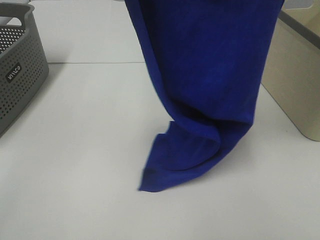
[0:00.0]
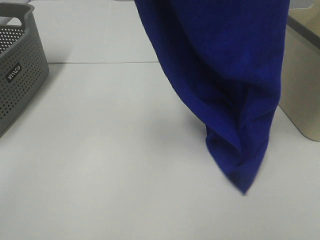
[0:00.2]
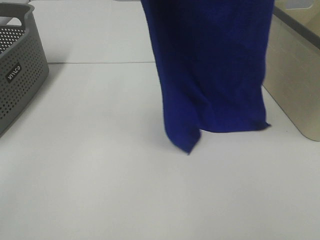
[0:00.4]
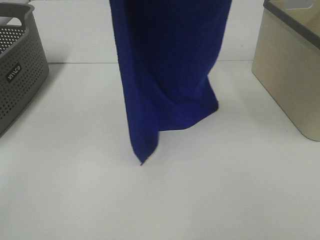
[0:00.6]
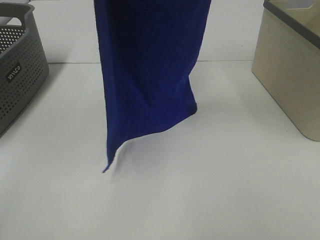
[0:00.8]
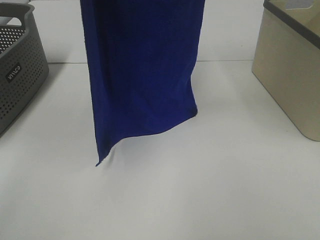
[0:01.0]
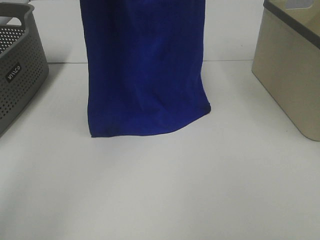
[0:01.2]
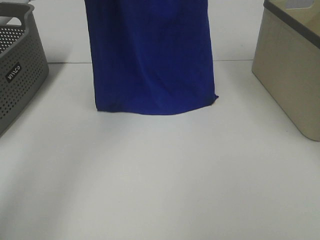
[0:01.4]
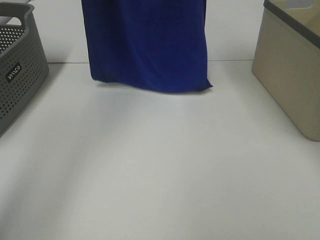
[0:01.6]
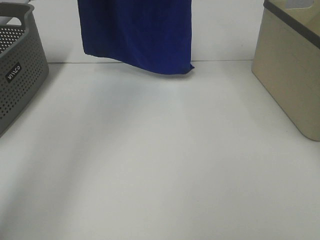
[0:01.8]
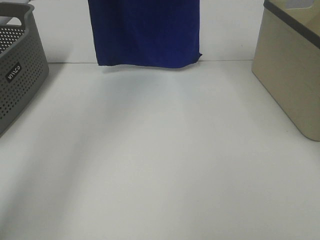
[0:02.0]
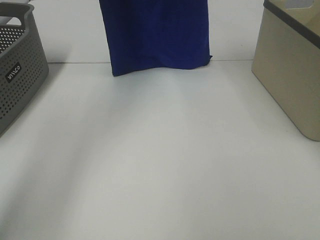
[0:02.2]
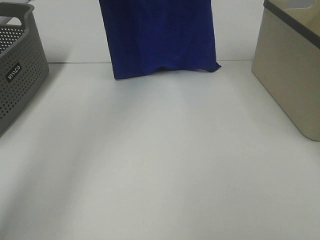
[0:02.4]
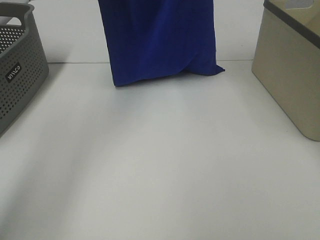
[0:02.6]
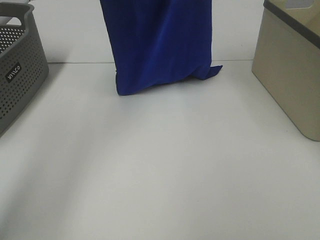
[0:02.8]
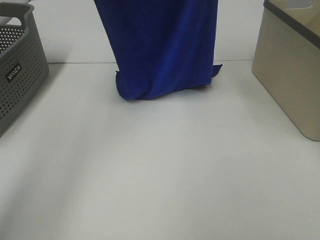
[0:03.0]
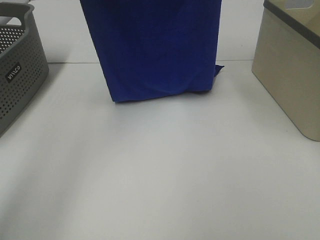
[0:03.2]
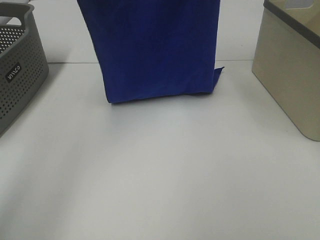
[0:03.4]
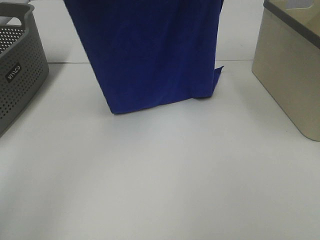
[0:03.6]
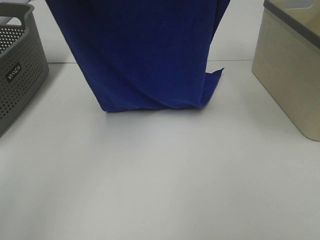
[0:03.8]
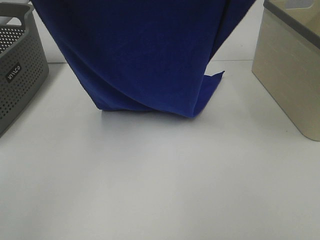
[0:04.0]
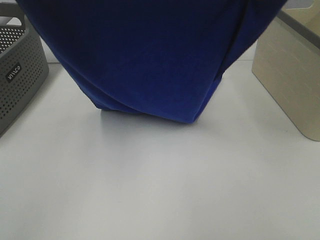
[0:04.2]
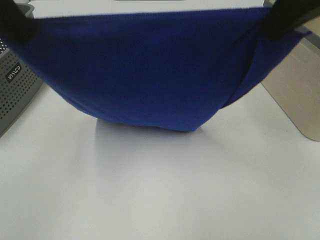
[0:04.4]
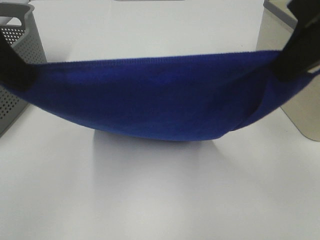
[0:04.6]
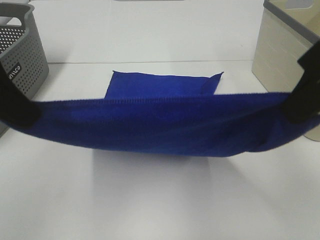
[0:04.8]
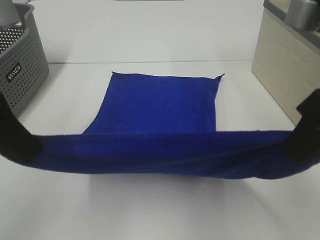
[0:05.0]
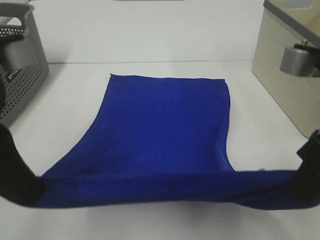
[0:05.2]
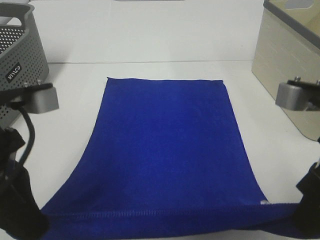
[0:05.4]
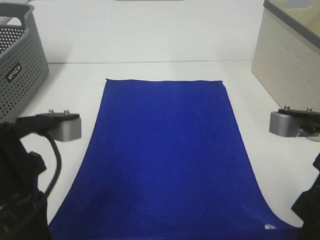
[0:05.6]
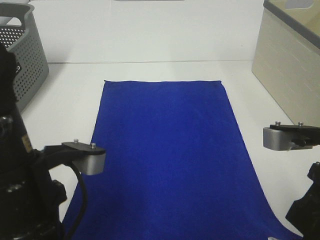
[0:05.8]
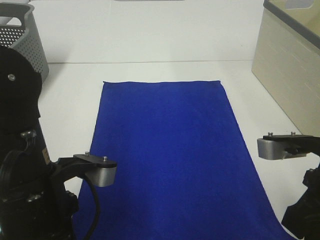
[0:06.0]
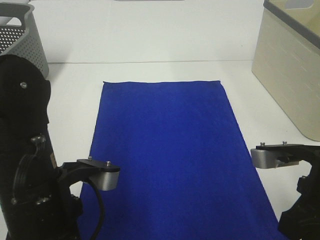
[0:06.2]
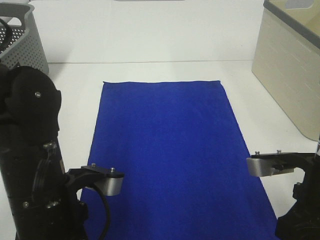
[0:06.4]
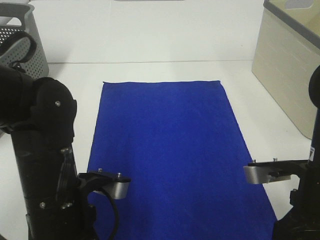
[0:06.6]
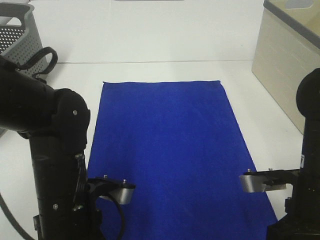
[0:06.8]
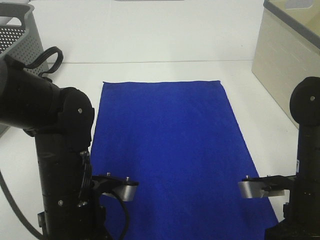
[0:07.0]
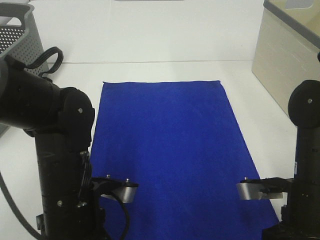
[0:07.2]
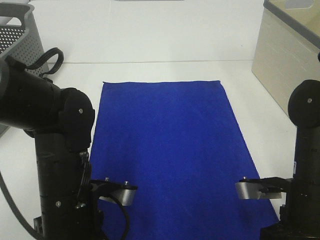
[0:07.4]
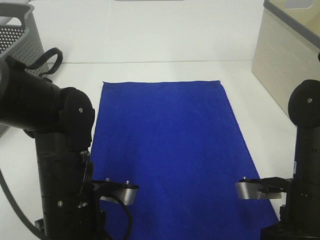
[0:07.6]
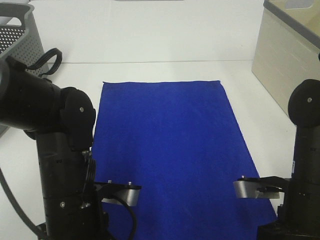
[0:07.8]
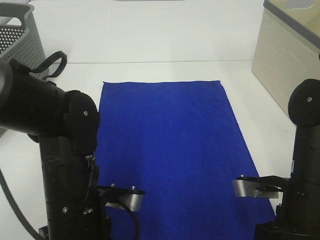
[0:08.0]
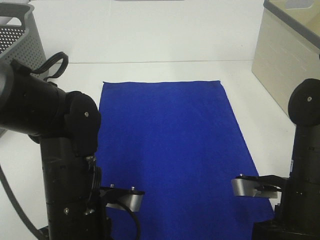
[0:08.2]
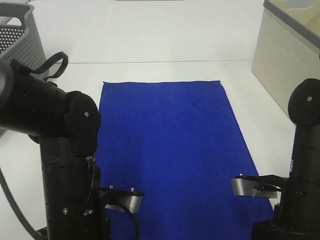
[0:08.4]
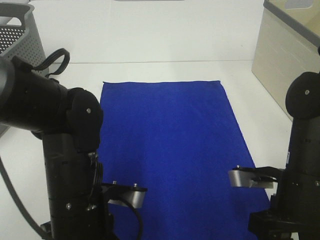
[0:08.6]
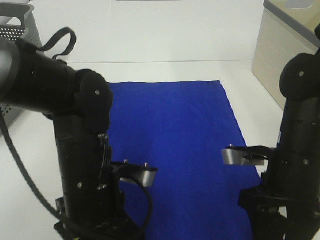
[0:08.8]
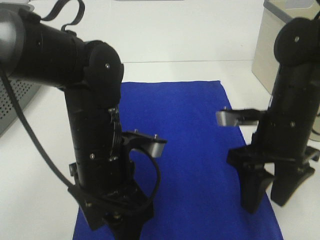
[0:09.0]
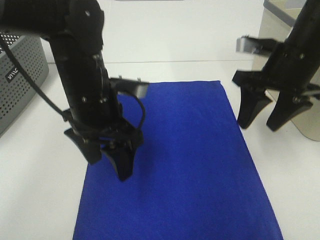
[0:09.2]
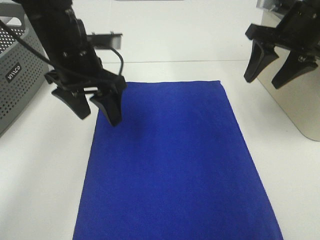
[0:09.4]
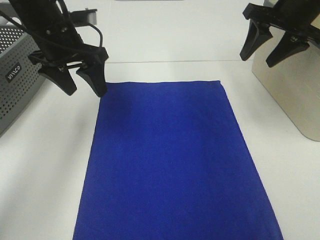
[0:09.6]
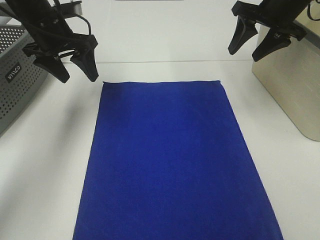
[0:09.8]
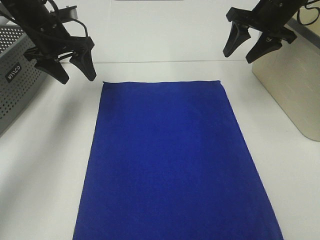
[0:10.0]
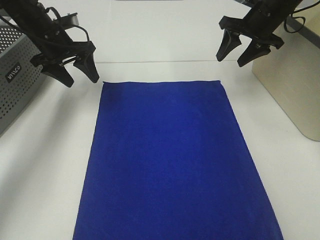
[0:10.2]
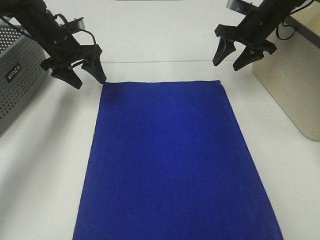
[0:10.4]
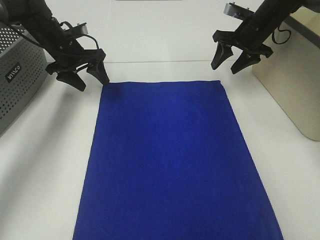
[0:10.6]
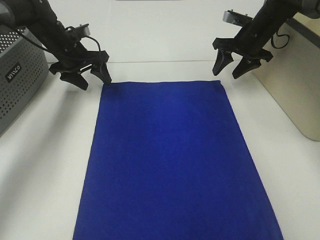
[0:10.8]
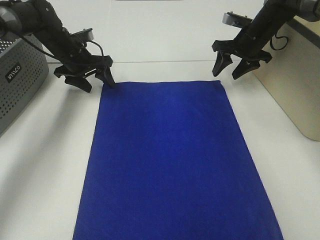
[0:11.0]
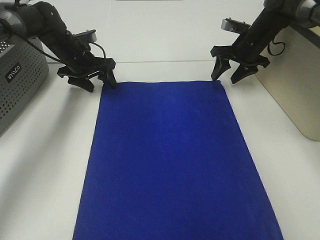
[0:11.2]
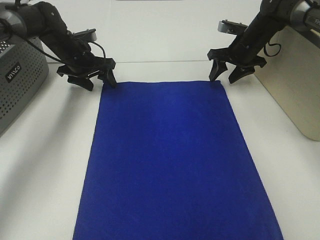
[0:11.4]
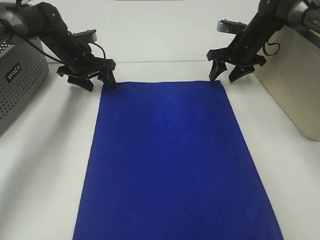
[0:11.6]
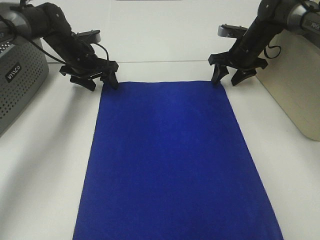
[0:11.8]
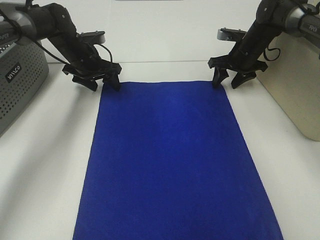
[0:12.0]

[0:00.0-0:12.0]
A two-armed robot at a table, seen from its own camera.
Task of the whole recording: Remove the towel and place it.
Step, 0:00.0 to 0:02.4: Left hand: spread the blue towel flat on the table.
Step, 0:00.0 to 0:02.4: Right hand: spread the blue towel flat on the table.
Step, 0:02.6 to 0:10.2: Left hand:adjust the blue towel.
Step, 0:02.6 to 0:10.2: Right hand:adjust the blue towel.
0:00.0 to 0:01.6: The two grippers go roughly 15 cm forward and to the left.
0:01.6 to 0:03.0: The left gripper shifts about 5 cm downward. Meanwhile the right gripper shifts by roughly 5 cm.
0:03.0 to 0:04.4: The two grippers go approximately 20 cm backward and downward.
0:04.4 to 0:06.0: The right gripper moves downward, roughly 20 cm, while the left gripper is displaced downward and backward by approximately 20 cm.
0:06.0 to 0:07.6: Both grippers travel together downward, approximately 5 cm.
0:07.6 to 0:09.0: The right gripper travels forward by about 10 cm, and opens; the left gripper moves about 5 cm, and opens up.
0:09.0 to 0:10.4: The right gripper travels forward by some 25 cm. The left gripper moves forward and to the left, roughly 35 cm.
0:10.4 to 0:12.0: The left gripper shifts by approximately 5 cm. Meanwhile the right gripper is displaced downward by roughly 10 cm.

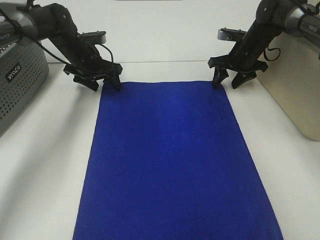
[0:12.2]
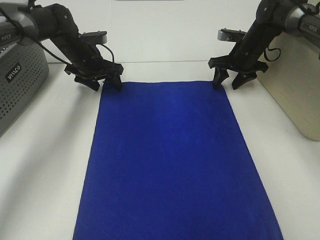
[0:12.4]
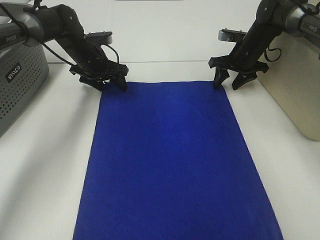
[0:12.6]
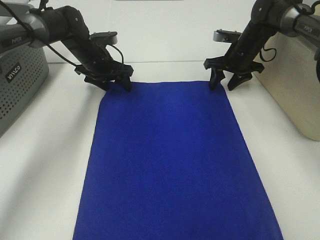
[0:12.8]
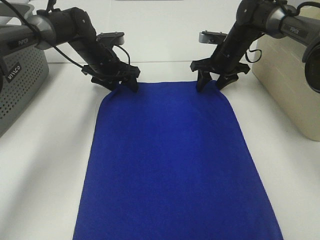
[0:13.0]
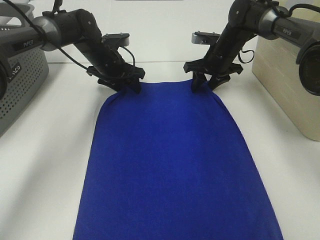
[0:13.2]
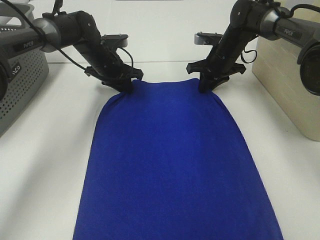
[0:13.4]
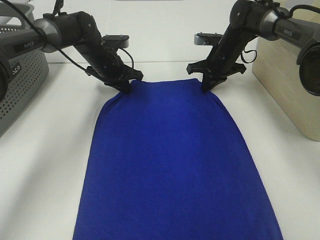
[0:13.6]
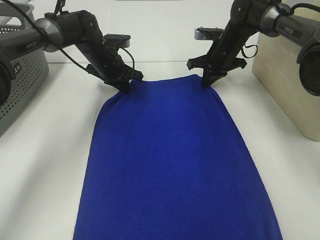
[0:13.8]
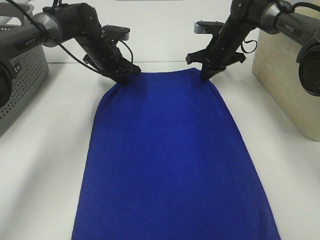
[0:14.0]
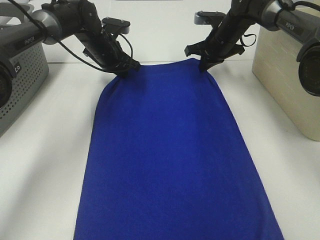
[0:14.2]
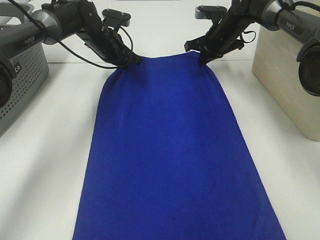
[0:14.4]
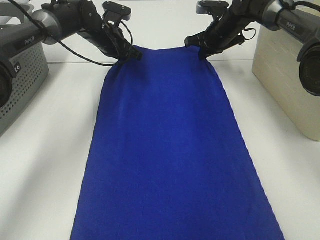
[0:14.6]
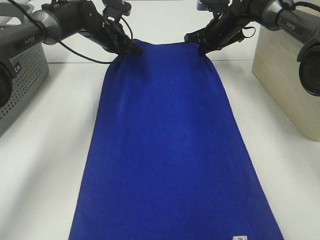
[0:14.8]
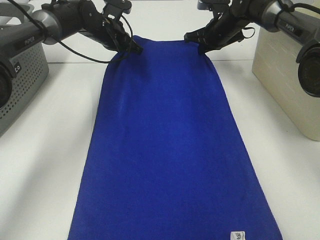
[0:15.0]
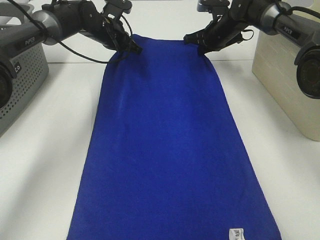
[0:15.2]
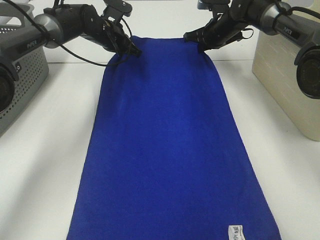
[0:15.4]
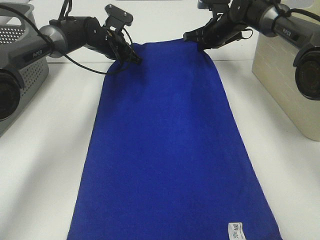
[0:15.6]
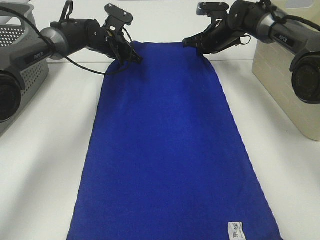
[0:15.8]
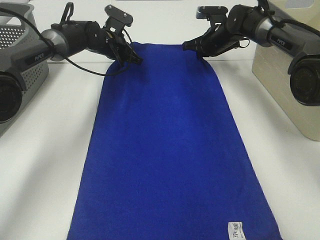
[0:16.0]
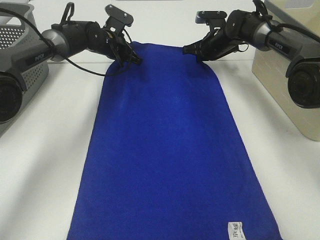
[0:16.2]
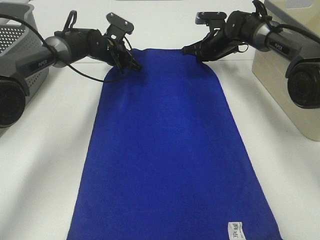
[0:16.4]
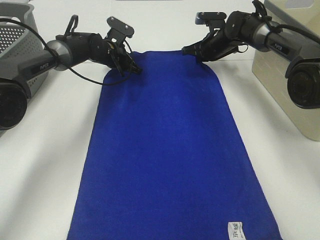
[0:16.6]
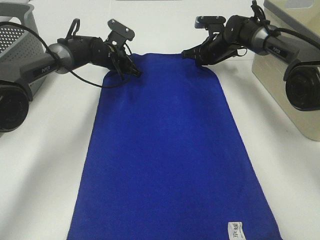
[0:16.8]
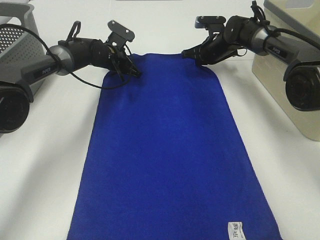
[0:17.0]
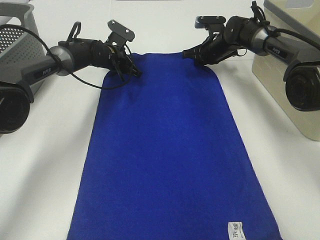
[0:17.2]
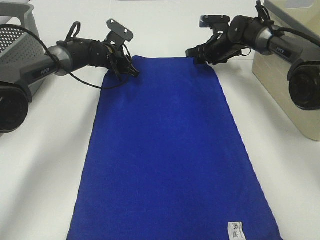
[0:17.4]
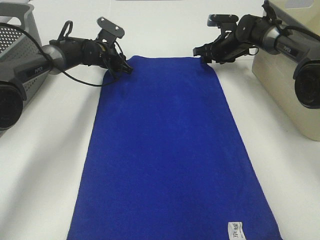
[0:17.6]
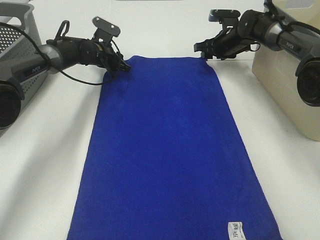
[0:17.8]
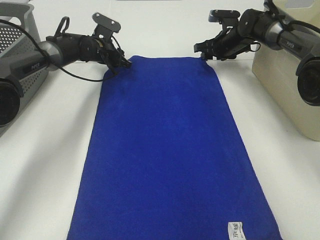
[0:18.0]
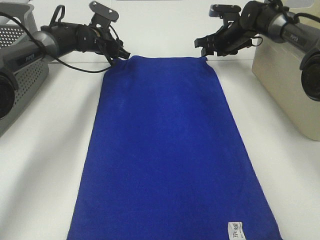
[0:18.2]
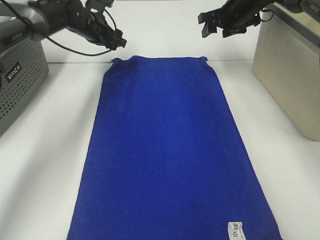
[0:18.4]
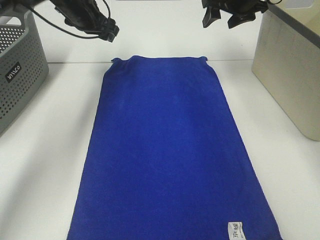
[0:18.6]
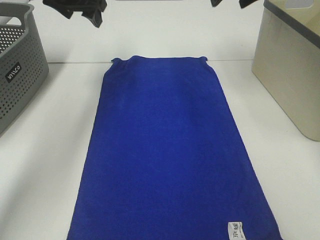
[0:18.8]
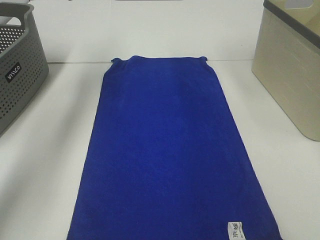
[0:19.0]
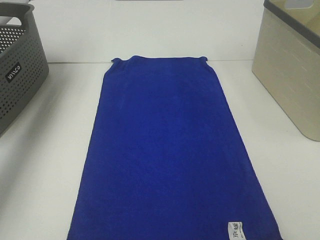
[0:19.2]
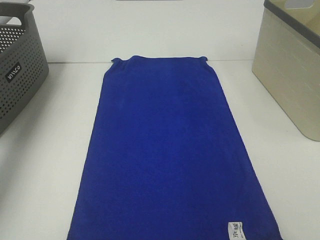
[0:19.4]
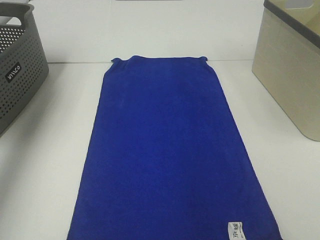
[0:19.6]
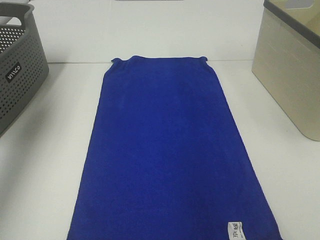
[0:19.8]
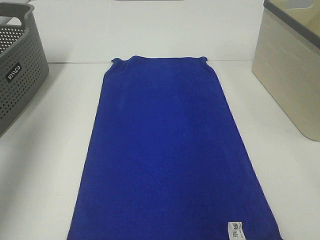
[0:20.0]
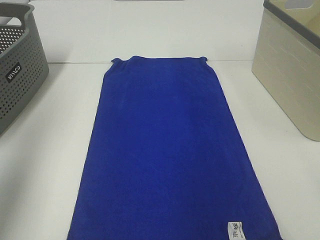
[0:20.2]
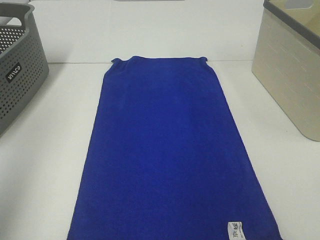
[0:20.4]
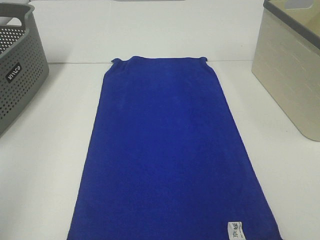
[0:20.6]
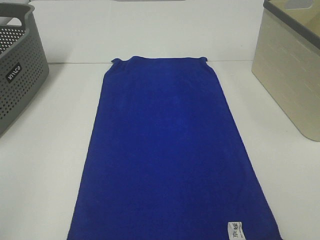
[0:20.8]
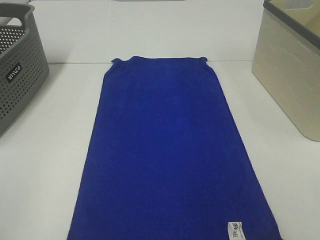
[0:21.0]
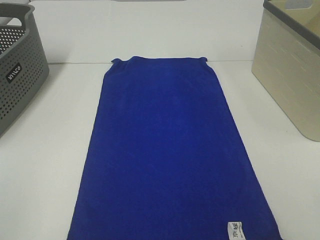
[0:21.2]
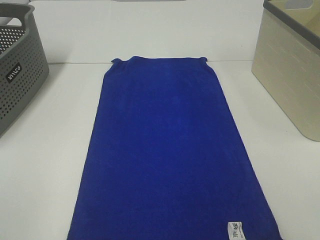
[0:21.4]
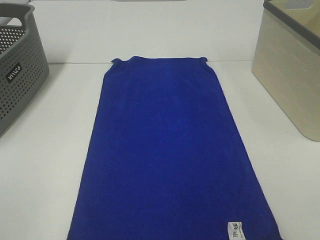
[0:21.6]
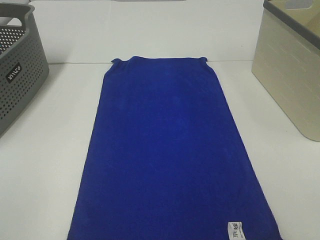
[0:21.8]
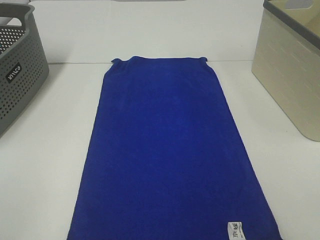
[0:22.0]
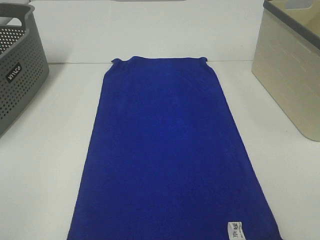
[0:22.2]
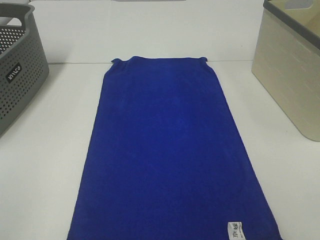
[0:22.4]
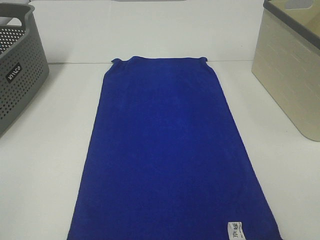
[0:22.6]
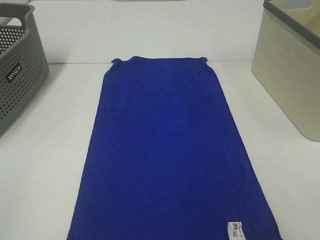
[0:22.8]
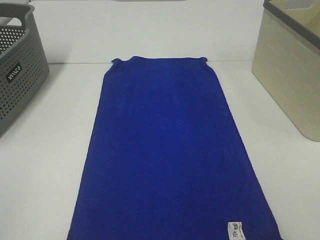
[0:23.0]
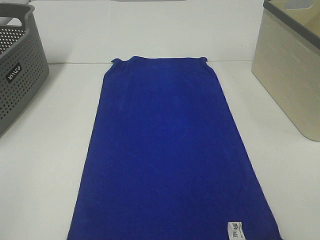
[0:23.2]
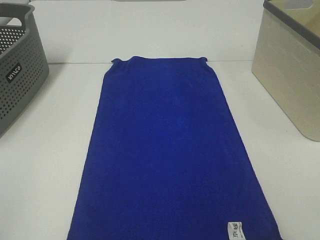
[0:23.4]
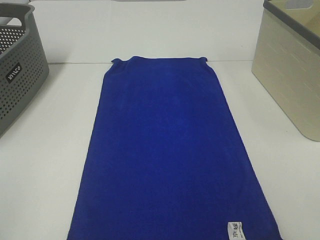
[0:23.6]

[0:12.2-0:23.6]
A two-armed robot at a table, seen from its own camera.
Task of the whole recording: Remove the towel and place it.
0:12.2 to 0:13.6: The left gripper shifts about 5 cm to the right, and closes up. Meanwhile the right gripper is displaced to the left by about 5 cm, and closes up.
0:13.6 to 0:15.0: The left gripper goes approximately 5 cm upward. The right gripper ends up roughly 5 cm from where it was.
0:15.0 to 0:16.4: The left gripper moves downward, about 5 cm.
0:16.4 to 0:17.8: The left gripper opens up. Meanwhile the right gripper opens up.
0:17.8 to 0:19.4: The left gripper shifts about 35 cm upward and to the left; the right gripper shifts roughly 35 cm upward and backward.
0:19.4 to 0:20.8: The left gripper is displaced backward by some 50 cm.
